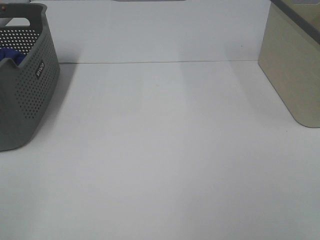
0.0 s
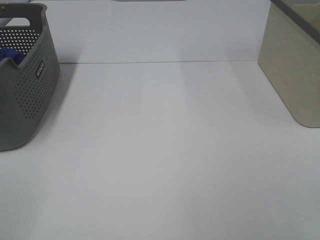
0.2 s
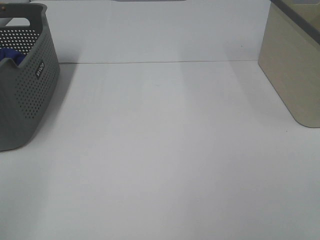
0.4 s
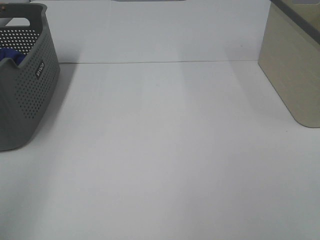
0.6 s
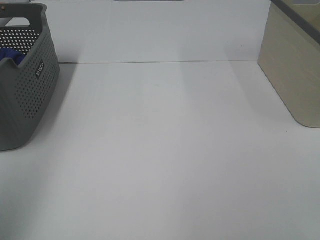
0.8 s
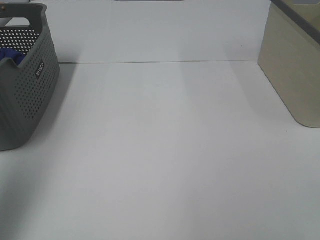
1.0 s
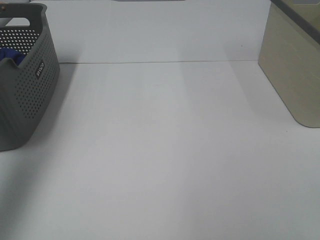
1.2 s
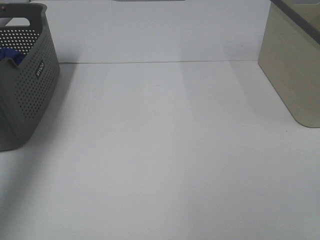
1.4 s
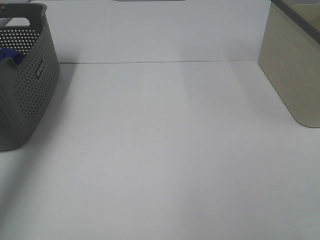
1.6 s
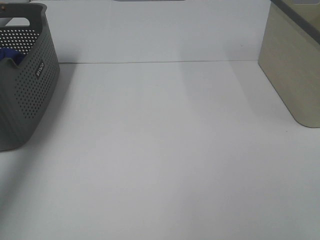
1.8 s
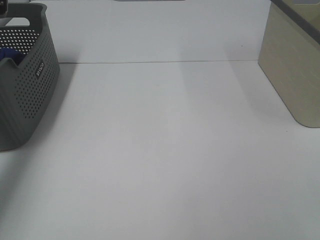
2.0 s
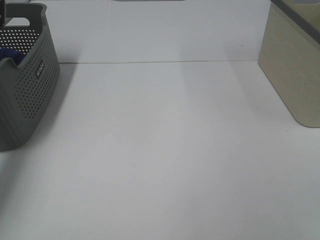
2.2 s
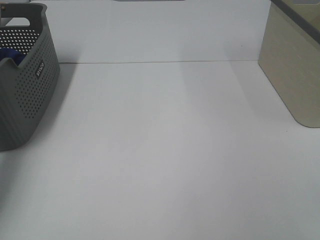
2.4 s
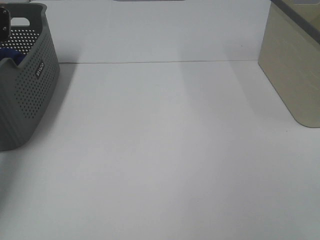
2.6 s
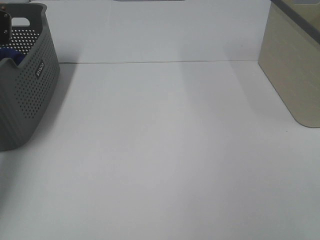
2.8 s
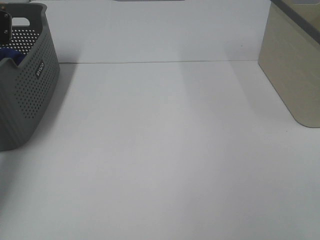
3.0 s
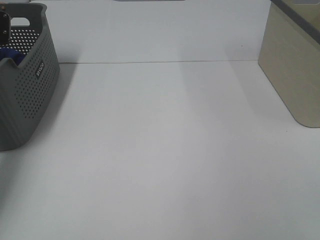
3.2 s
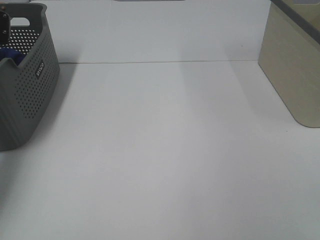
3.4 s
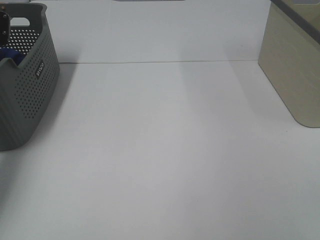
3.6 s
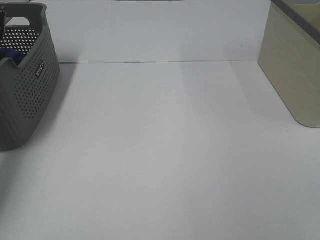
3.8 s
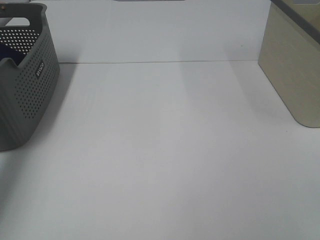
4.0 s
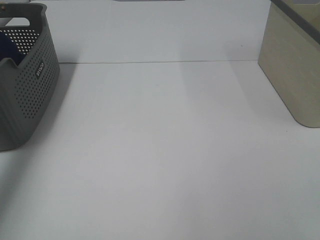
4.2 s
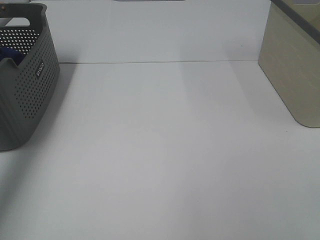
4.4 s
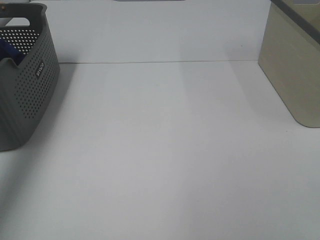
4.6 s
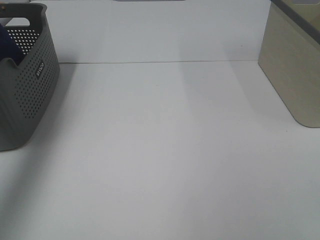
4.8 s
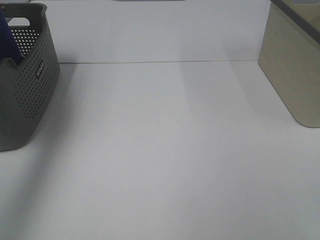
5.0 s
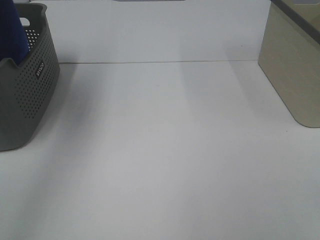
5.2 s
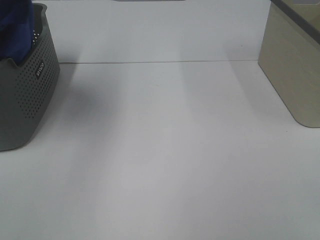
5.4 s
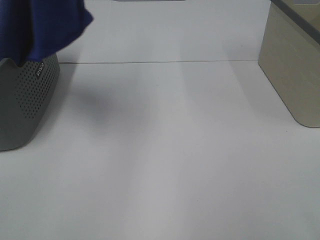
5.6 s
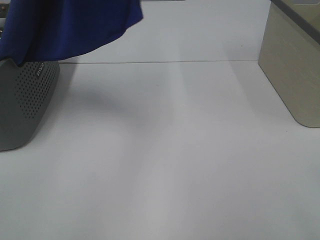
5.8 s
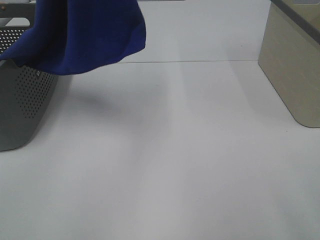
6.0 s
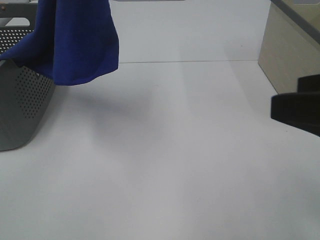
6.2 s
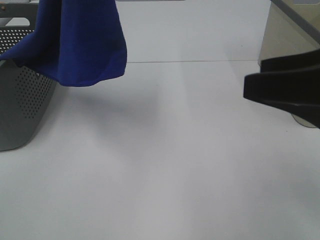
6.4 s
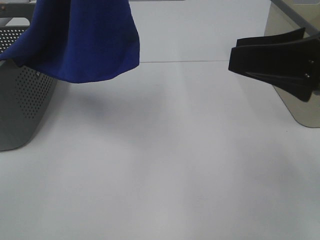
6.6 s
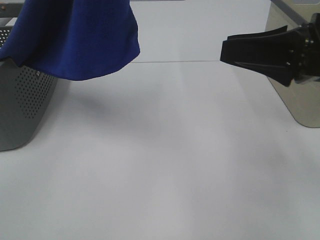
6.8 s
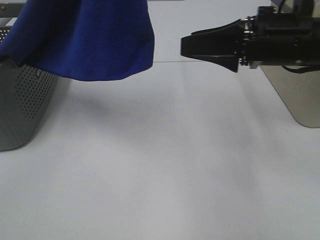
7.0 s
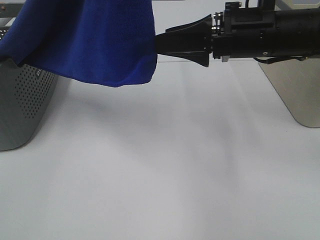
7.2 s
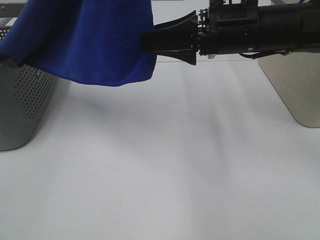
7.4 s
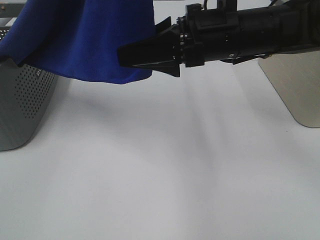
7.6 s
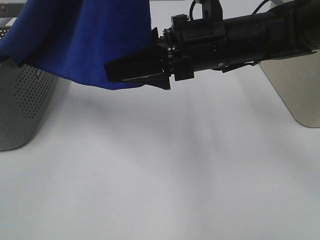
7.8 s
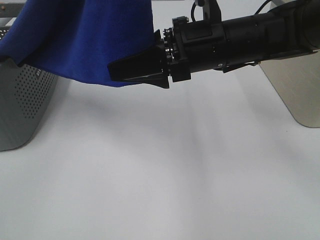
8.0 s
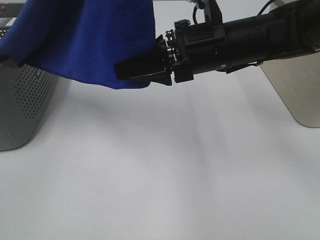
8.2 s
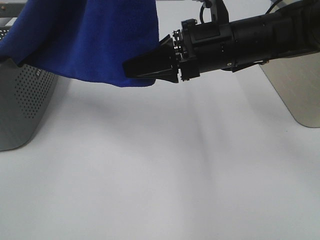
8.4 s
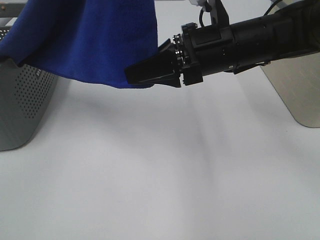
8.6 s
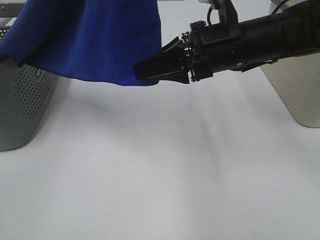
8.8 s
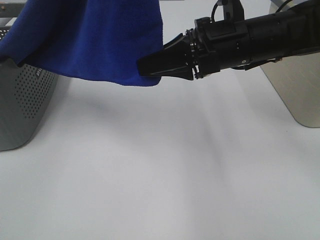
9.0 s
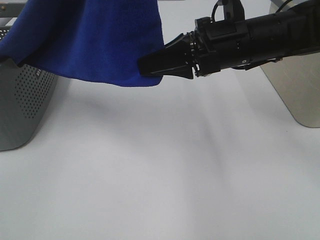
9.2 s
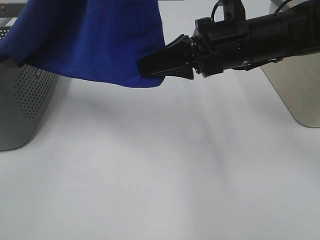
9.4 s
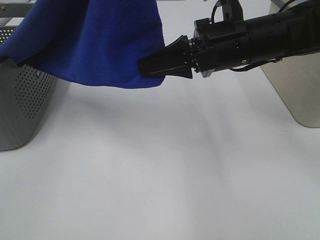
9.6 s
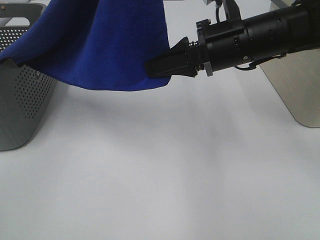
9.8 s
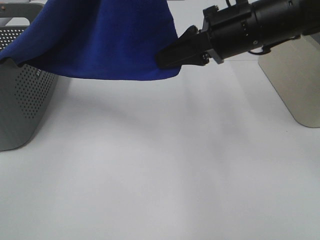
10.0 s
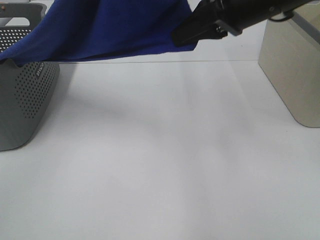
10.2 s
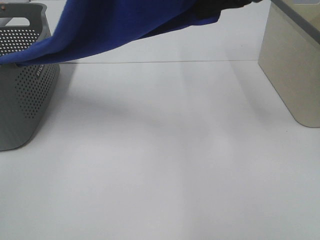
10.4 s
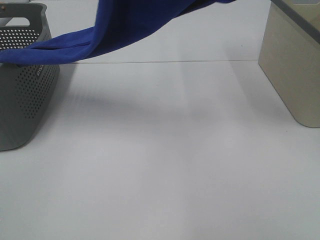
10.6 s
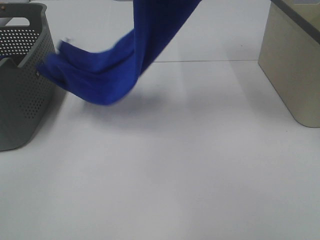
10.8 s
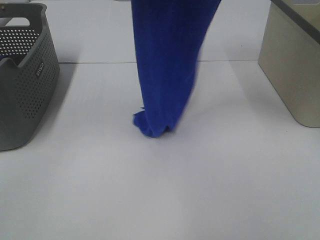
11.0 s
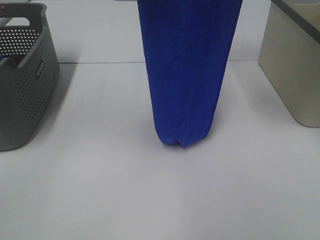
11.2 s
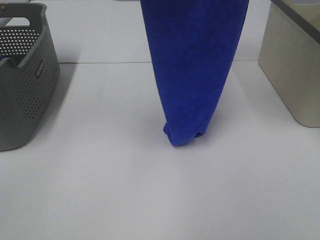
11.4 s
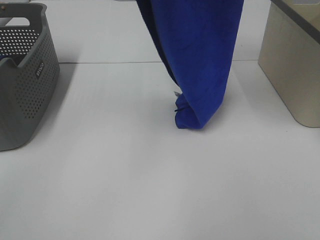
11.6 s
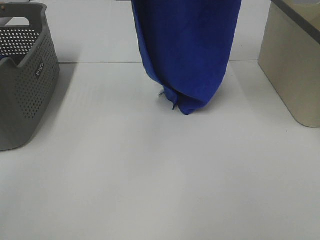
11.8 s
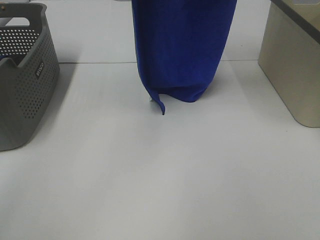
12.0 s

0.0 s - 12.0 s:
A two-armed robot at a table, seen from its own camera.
Task of the whole recording: Remove the towel and place it.
Step, 5.0 s - 9.4 s: Right hand: grab a corner of the blue towel and straighten it.
0.0 s - 1.6 s: The left gripper shifts roughly 40 cm forward.
1.6 s - 3.0 s: The left gripper moves downward and forward, approximately 20 cm, and closes up.
3.0 s - 4.4 s: The left gripper goes about 20 cm upward, and closes its fingers.
4.4 s - 6.0 s: The left gripper heads to the right, backward and upward, covering approximately 30 cm. Meanwhile the right gripper goes some 5 cm forward.
6.0 s - 7.6 s: The right gripper is displaced forward and to the left by some 30 cm.
7.6 s - 9.0 s: The right gripper closes.
9.0 s - 10.4 s: The right gripper heads upward, covering about 10 cm, and closes up.
10.4 s - 12.0 s: The right gripper travels upward by roughly 15 cm. The left gripper shifts about 10 cm forward.

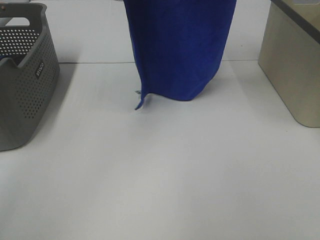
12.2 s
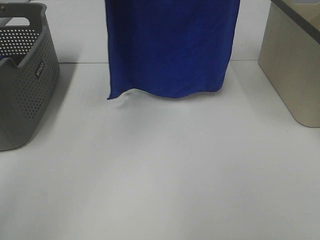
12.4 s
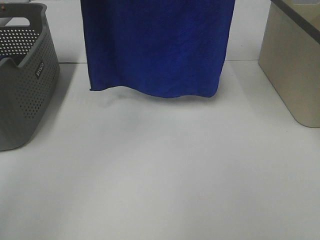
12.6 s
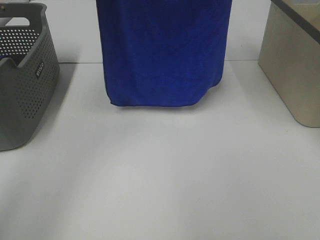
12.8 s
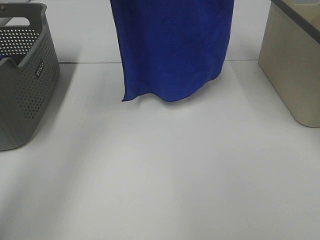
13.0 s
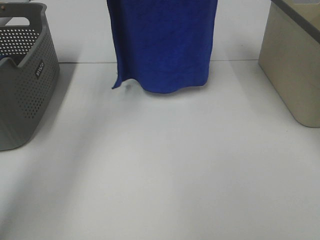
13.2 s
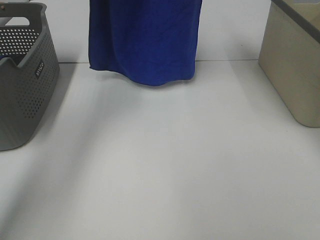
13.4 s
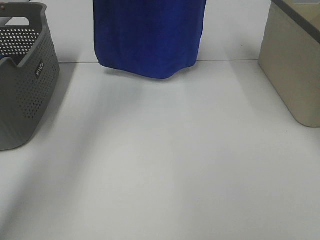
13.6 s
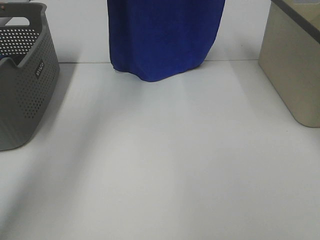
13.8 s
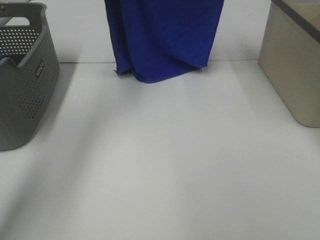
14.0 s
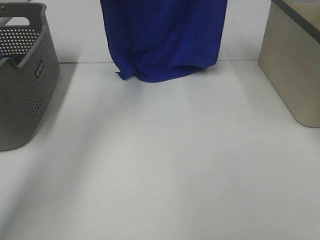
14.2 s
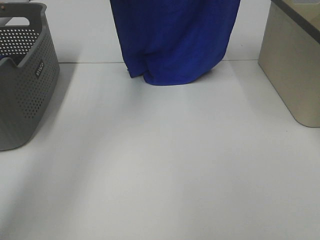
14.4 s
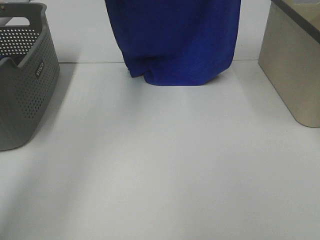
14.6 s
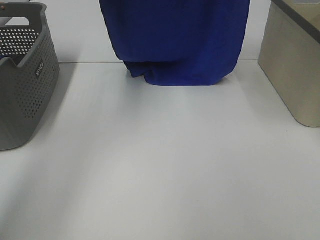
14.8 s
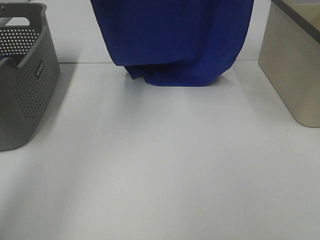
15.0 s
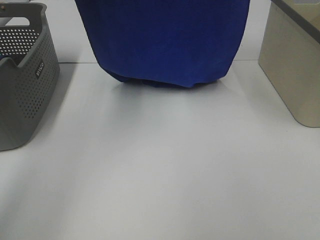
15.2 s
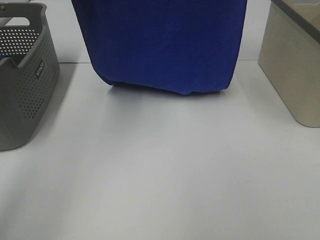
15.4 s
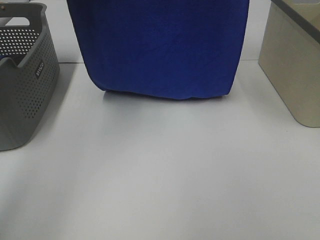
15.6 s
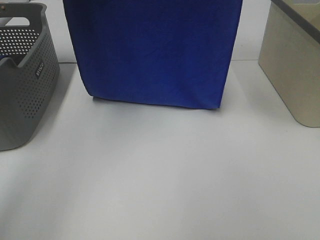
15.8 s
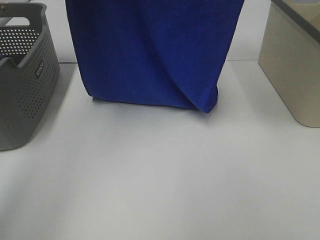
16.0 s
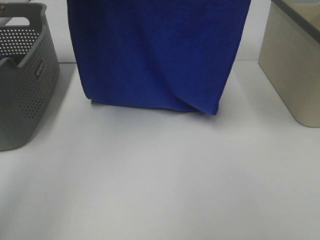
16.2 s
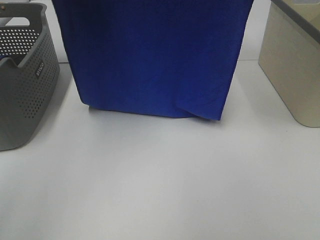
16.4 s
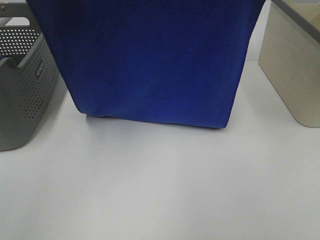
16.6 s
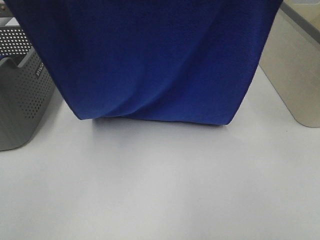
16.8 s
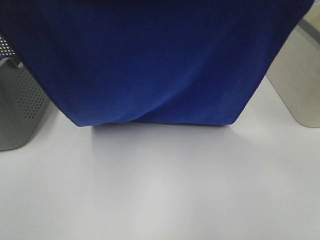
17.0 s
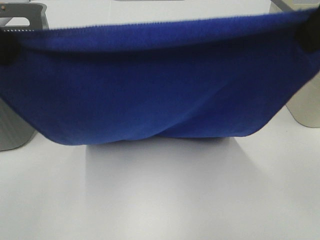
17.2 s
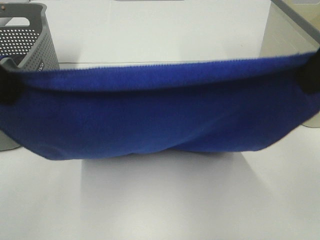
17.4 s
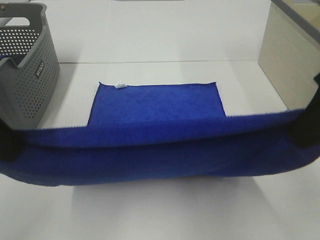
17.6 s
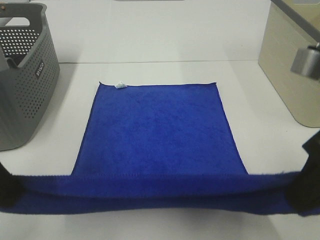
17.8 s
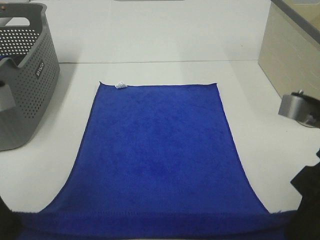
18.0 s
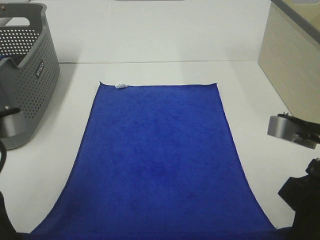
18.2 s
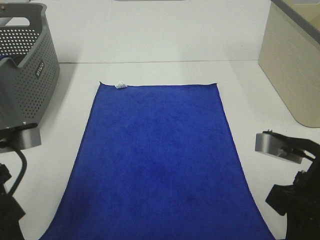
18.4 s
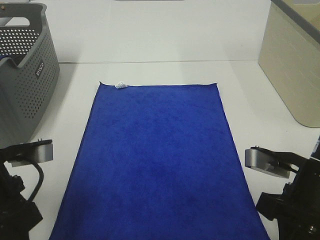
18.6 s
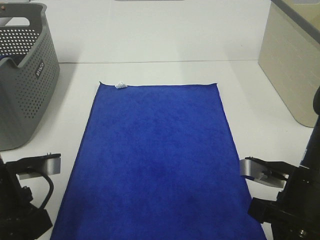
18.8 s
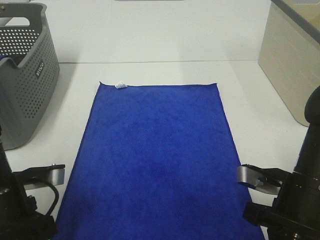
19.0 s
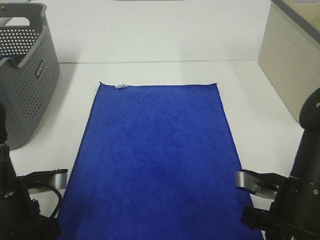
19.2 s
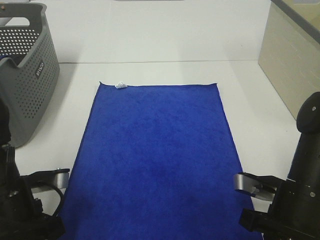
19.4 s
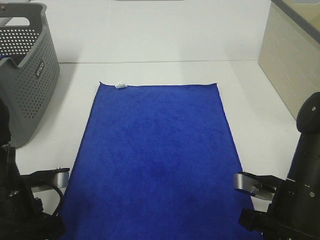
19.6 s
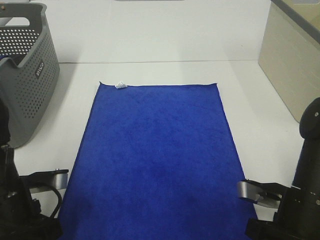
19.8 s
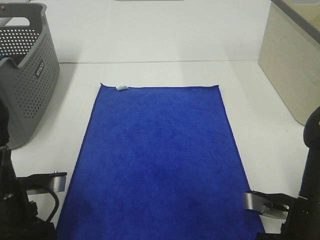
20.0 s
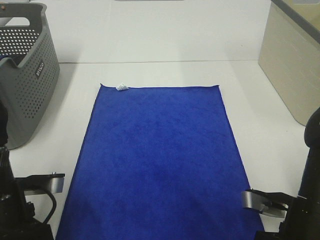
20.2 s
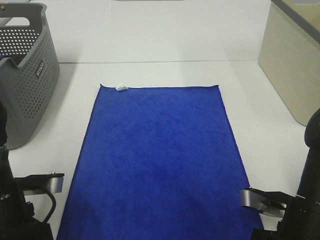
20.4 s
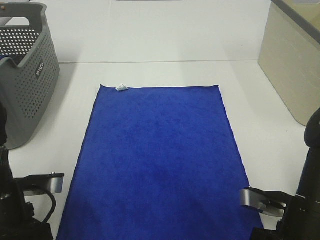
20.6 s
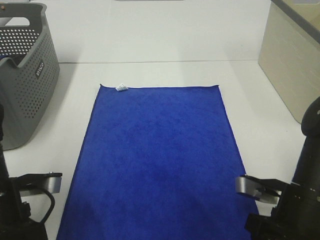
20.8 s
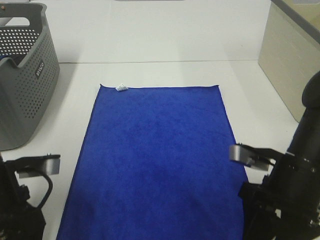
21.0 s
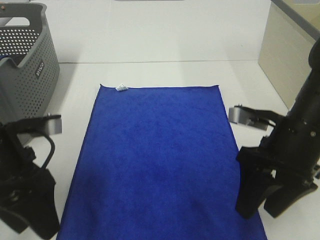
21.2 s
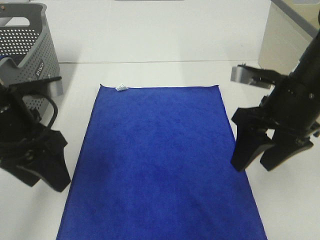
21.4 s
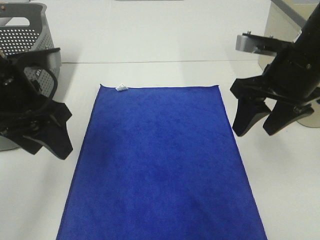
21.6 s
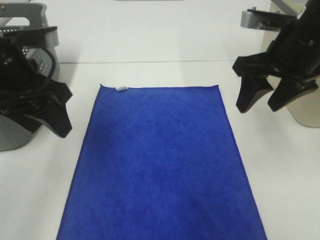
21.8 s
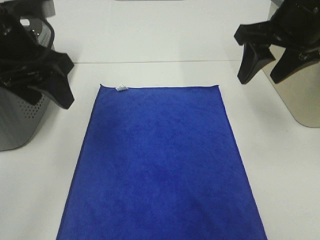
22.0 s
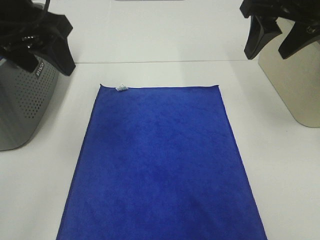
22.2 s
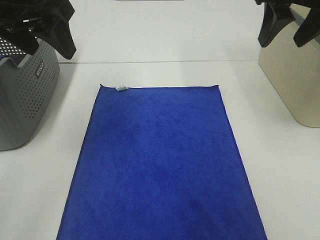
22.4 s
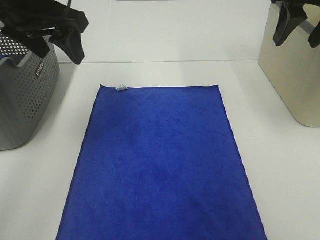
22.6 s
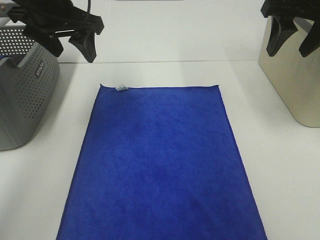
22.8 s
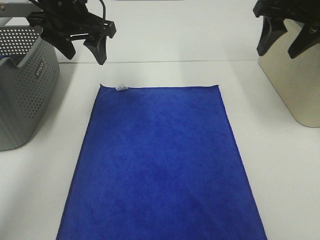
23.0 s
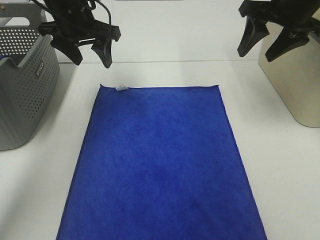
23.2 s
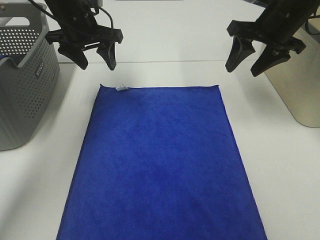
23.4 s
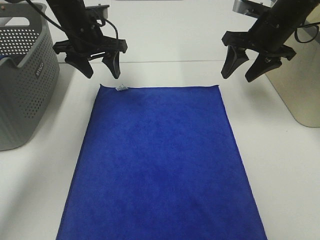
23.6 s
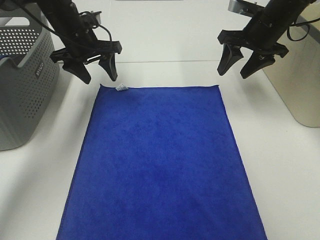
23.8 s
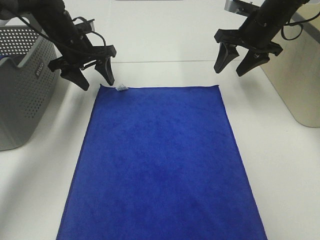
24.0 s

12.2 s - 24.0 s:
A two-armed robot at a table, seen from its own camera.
Task of the whole recording: Remove the towel and place it.
Step, 12.2 s - 15.6 s: Left hand: spread the blue towel flat on the table.
Step, 12.2 s - 15.6 s: Right hand: spread the blue towel flat on the table.
Step, 15.8 s - 24.0 s: Left hand:adjust the blue towel.
Step, 15.8 s - 24.0 s: Right hand:adjust the blue towel.
12.2 s - 13.6 s: The grippers both shift forward by roughly 10 cm.
13.6 s - 15.2 s: The grippers both shift backward by some 10 cm.
15.2 s - 16.6 s: The two grippers go approximately 5 cm backward.
16.6 s - 18.2 s: The grippers both shift downward and backward by about 30 cm.
18.2 s - 19.6 s: The two grippers go approximately 10 cm downward.
19.6 s - 21.0 s: The left gripper opens its fingers; the right gripper opens its fingers.
21.0 s - 22.6 s: The left gripper moves forward and upward, roughly 25 cm, while the right gripper moves upward and forward, approximately 25 cm.
22.6 s - 24.0 s: The left gripper moves forward and downward, approximately 20 cm, while the right gripper heads downward and forward, covering roughly 15 cm.
